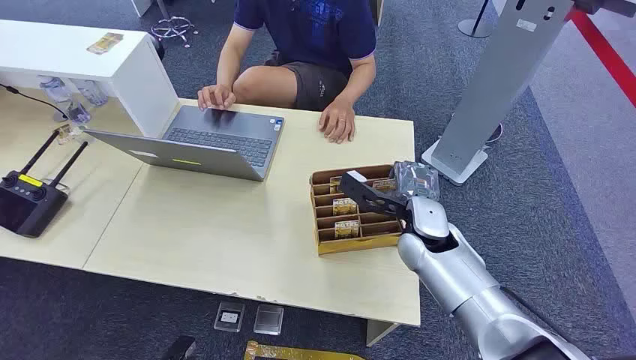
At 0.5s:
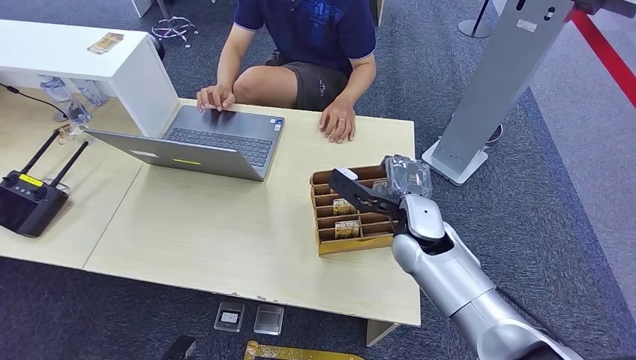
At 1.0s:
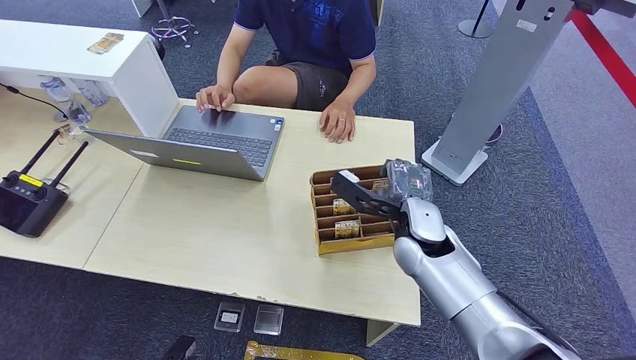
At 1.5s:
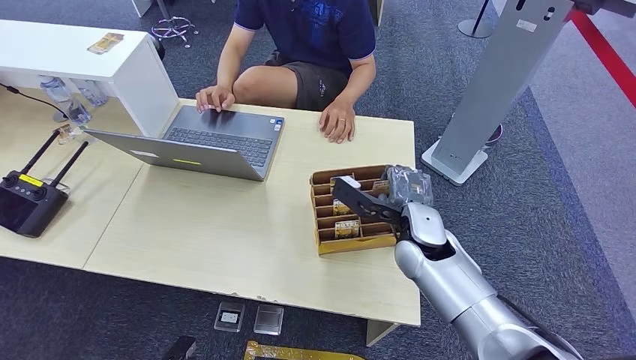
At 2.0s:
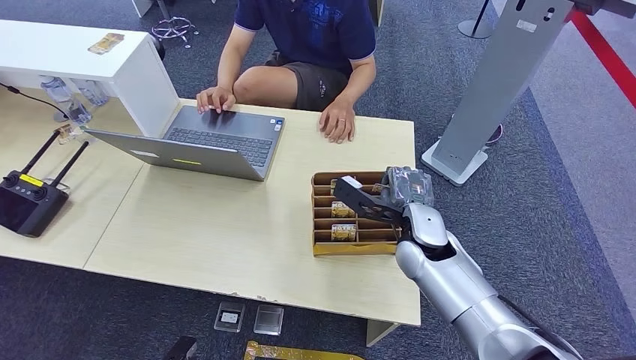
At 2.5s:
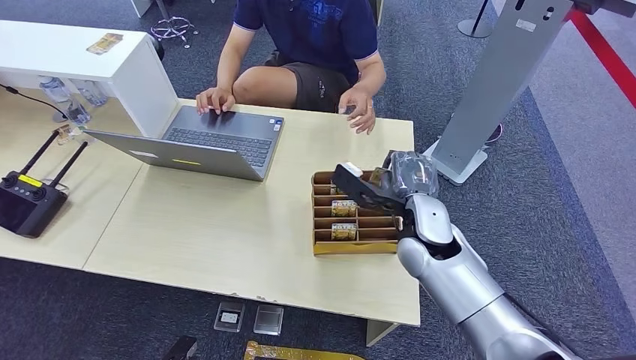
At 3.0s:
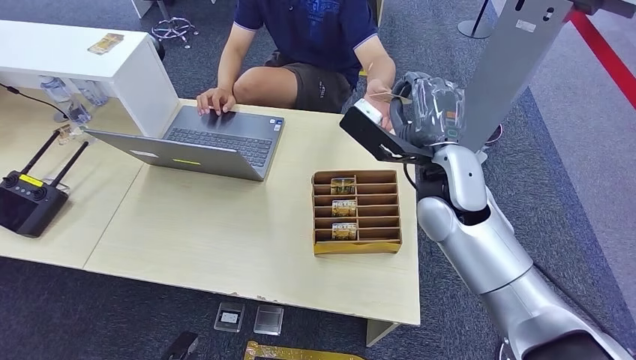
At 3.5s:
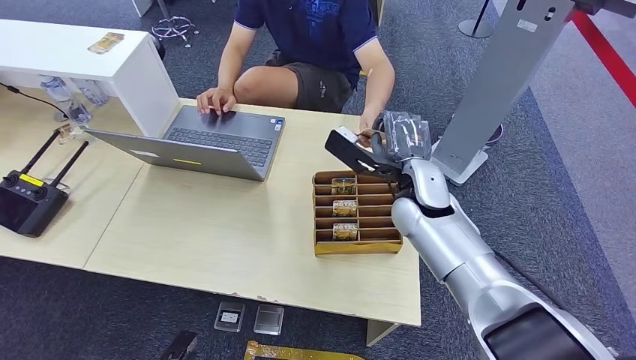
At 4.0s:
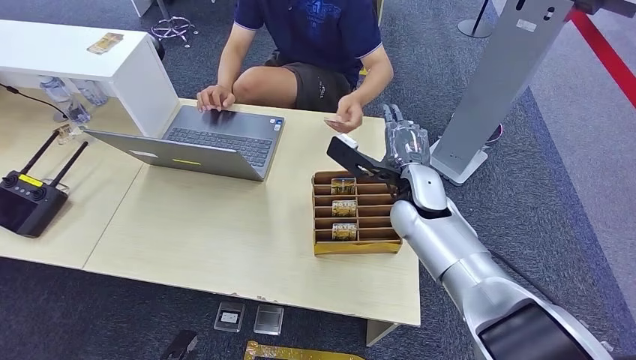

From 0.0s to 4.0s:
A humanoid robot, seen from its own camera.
Step, from 0.0s to 2.5s: Pick up the key card from the card box.
Step, from 3.0s to 4.0s: Hand the key card to the target.
